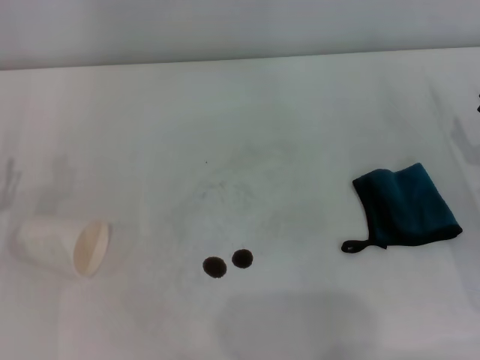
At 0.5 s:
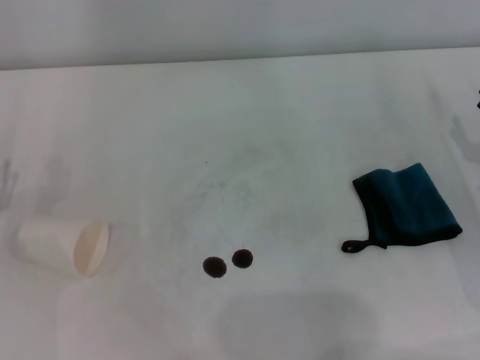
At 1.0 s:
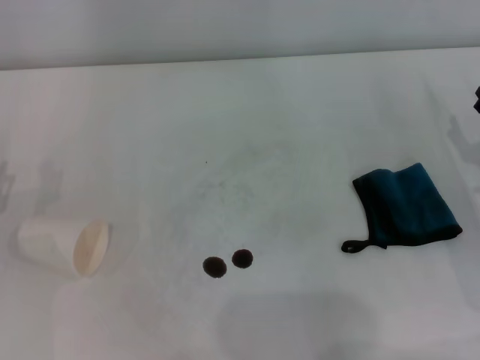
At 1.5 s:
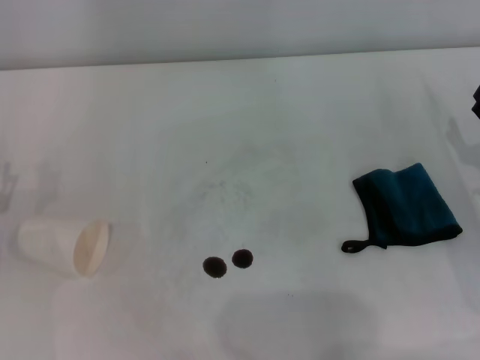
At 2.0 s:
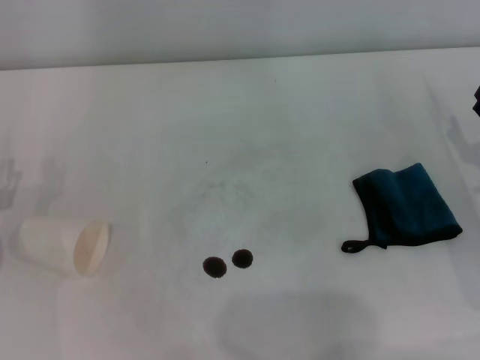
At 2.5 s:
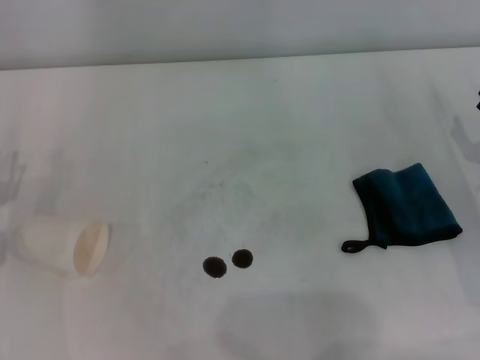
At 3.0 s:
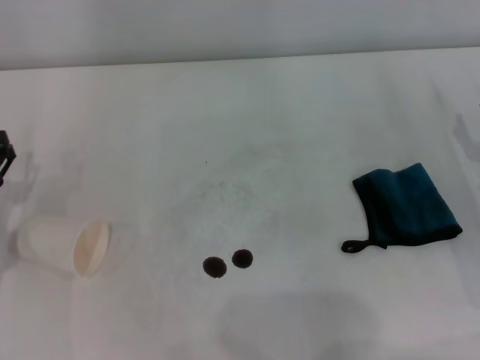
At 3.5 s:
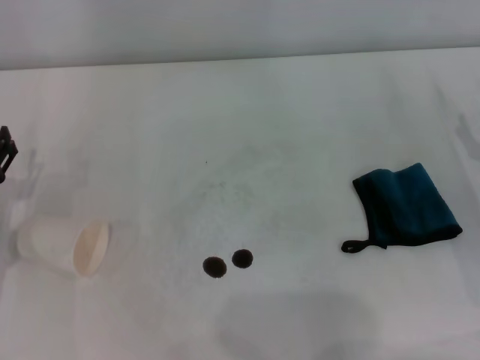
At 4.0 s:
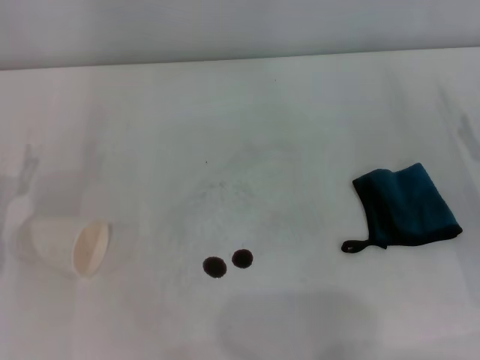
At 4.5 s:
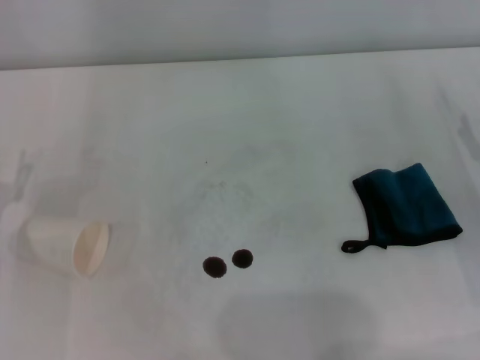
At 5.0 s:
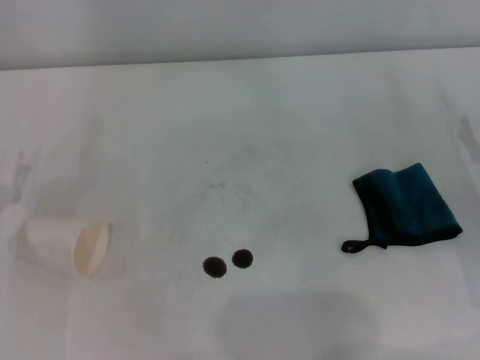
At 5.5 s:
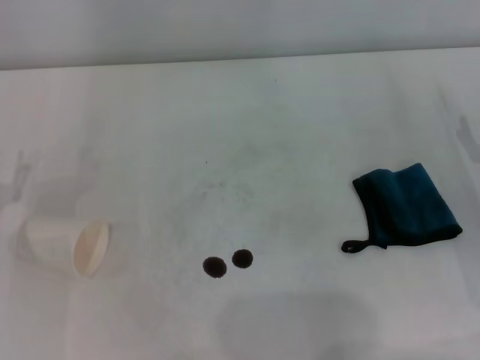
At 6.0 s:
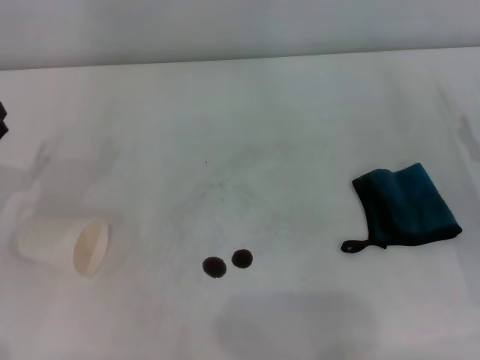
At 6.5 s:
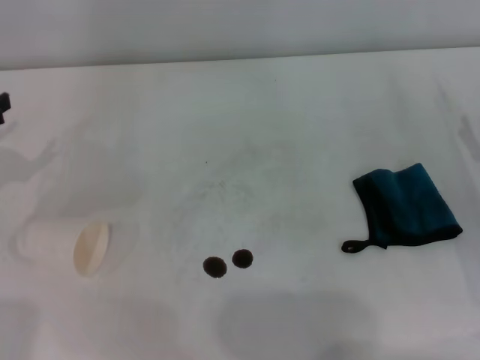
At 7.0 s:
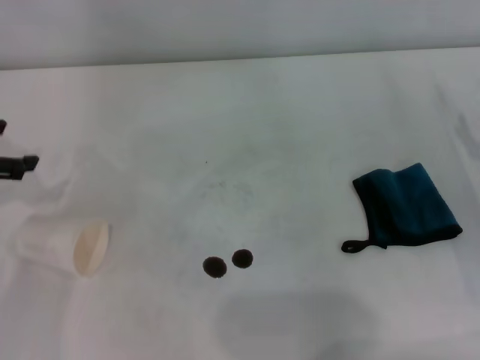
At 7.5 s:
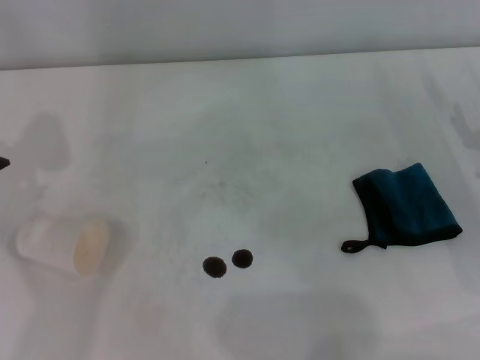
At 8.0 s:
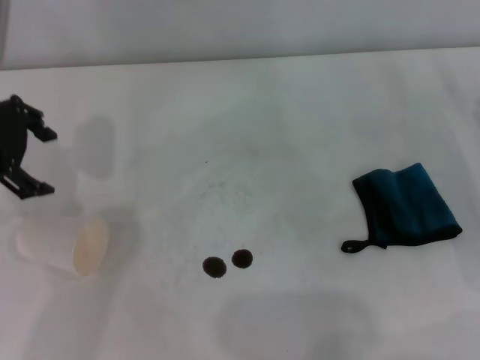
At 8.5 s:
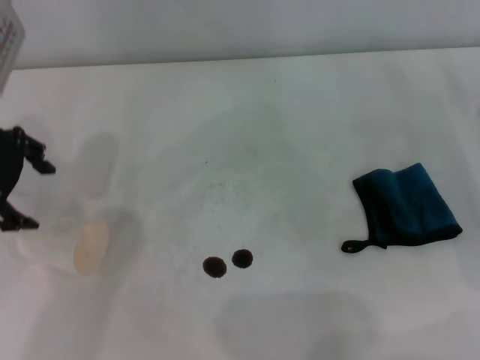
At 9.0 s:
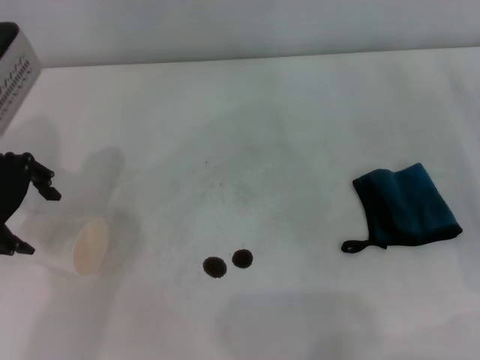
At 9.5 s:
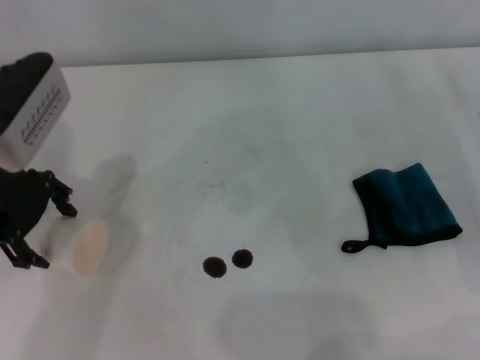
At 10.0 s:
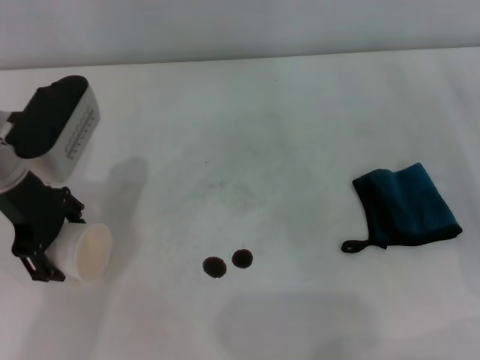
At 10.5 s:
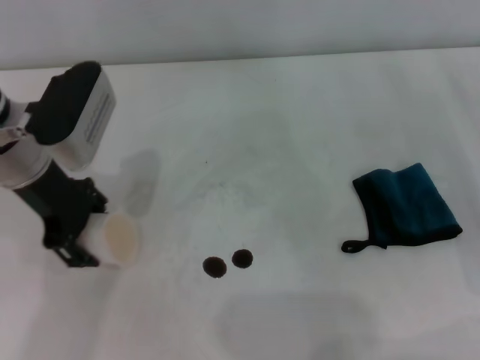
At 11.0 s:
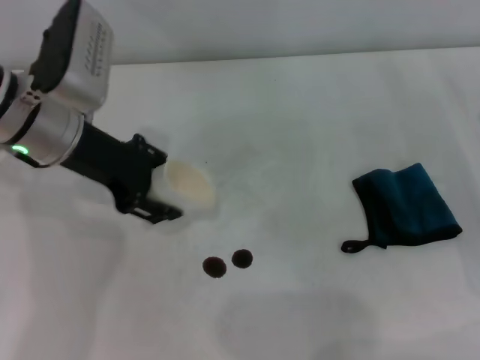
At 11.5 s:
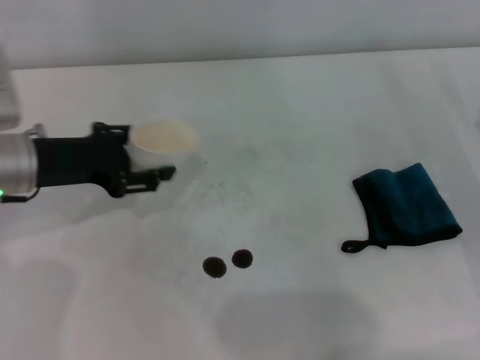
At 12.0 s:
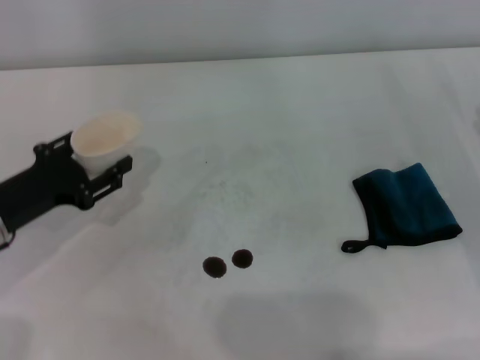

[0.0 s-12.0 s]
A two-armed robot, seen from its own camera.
Step, 0.0 to 10.0 s: Grasp the paper cup with the left gripper.
6.0 to 8.0 s: The left gripper moves upward, forward and to the right, roughly 20 cm.
8.0 to 10.0 s: The left gripper heads downward, covering about 5 cm.
10.0 to 12.0 s: The left gripper shifts some 15 cm downward, backward and to the left, and closes its fingers.

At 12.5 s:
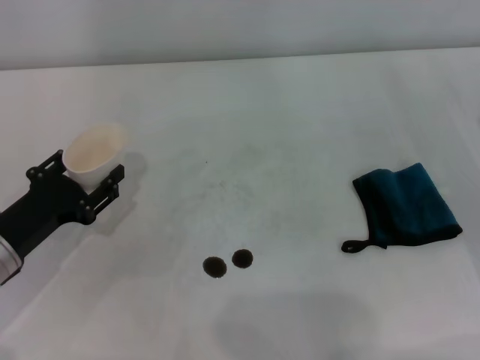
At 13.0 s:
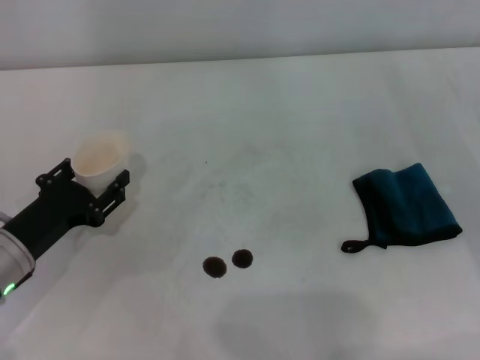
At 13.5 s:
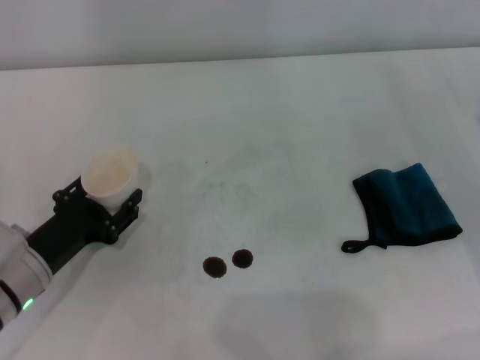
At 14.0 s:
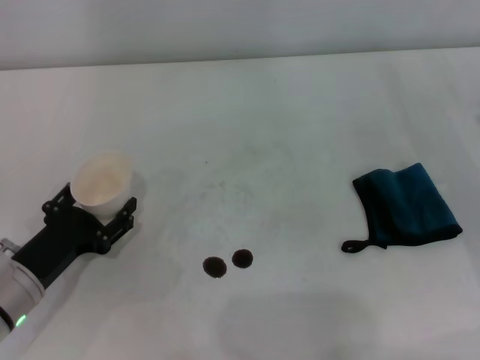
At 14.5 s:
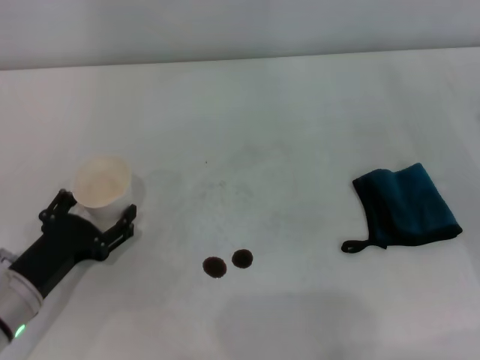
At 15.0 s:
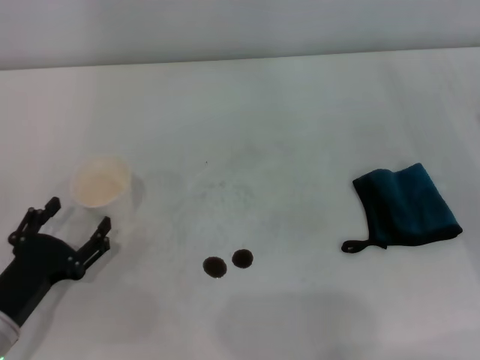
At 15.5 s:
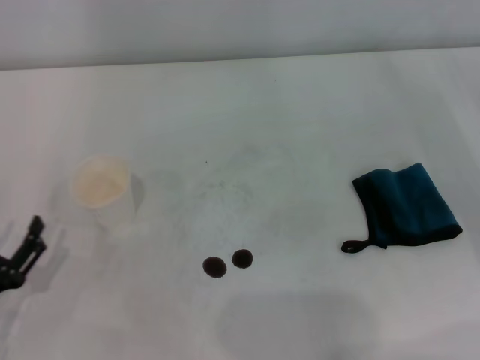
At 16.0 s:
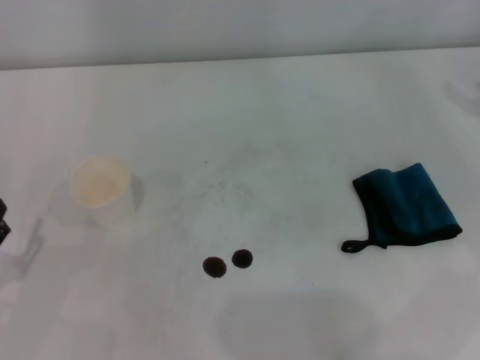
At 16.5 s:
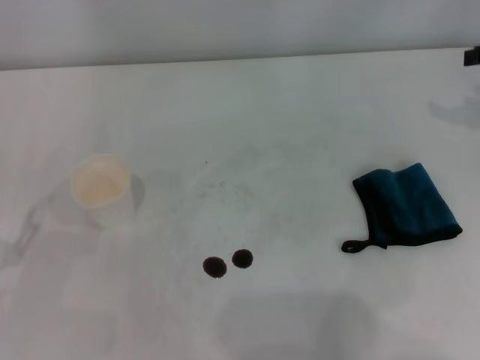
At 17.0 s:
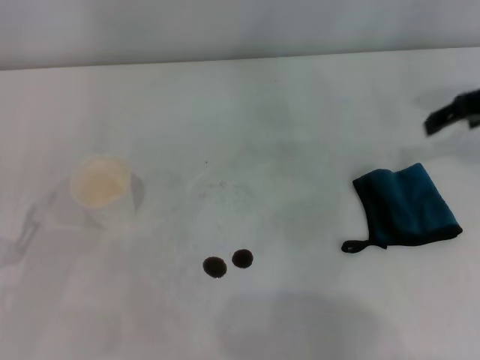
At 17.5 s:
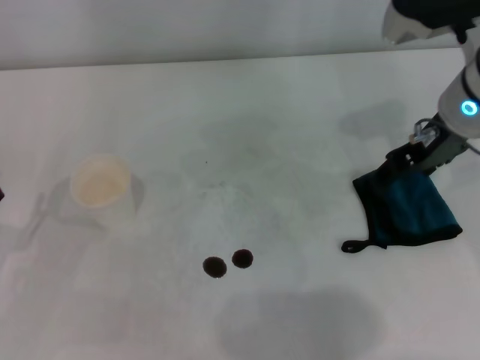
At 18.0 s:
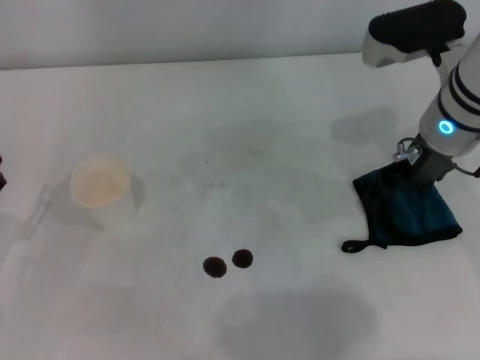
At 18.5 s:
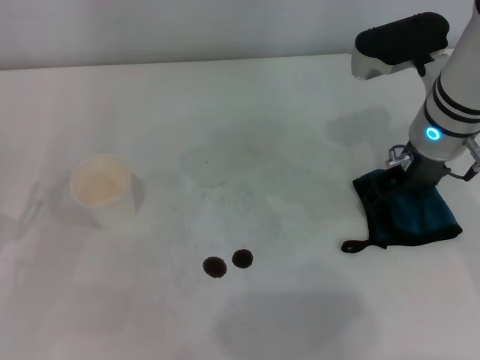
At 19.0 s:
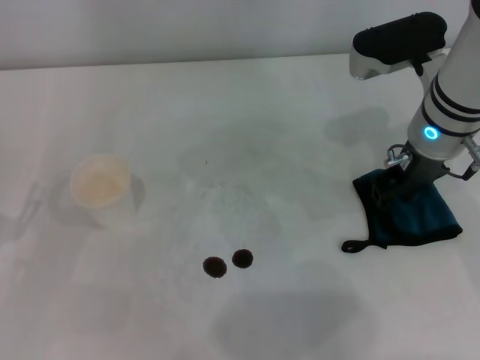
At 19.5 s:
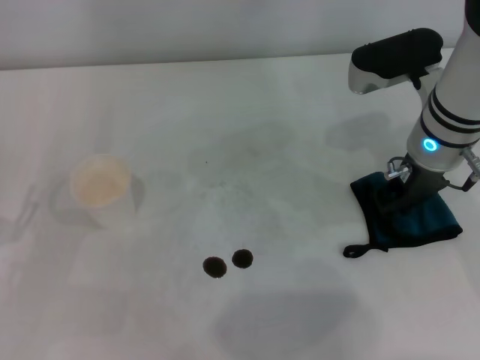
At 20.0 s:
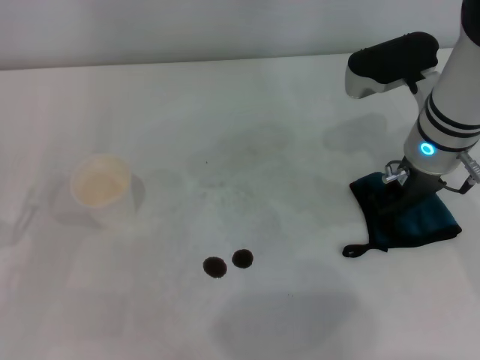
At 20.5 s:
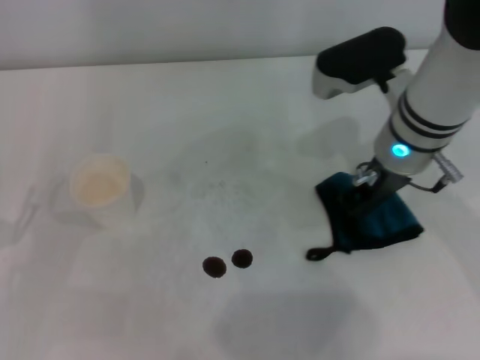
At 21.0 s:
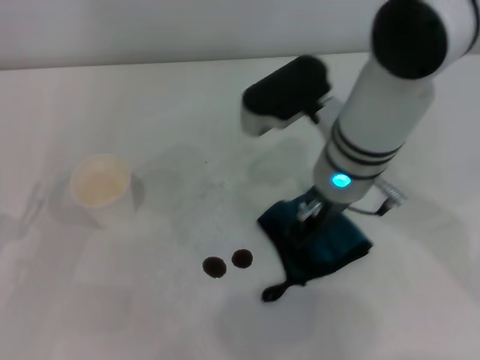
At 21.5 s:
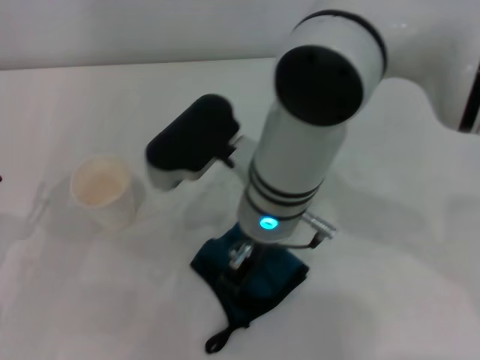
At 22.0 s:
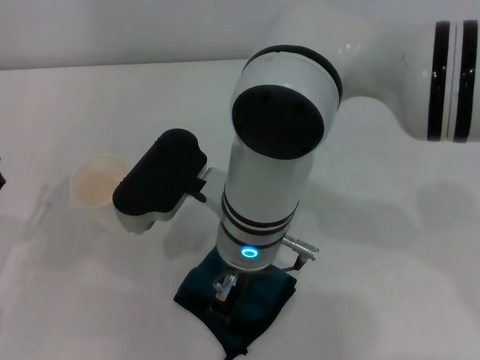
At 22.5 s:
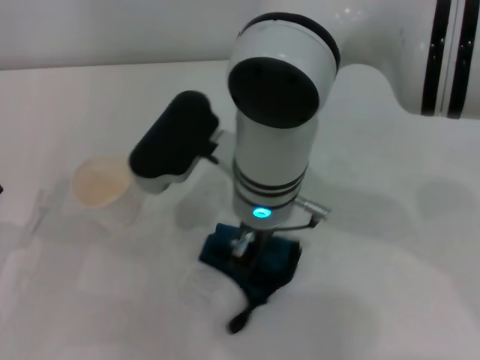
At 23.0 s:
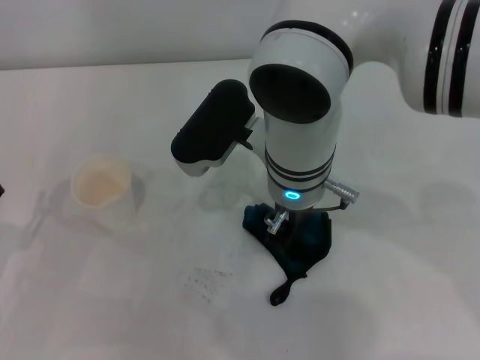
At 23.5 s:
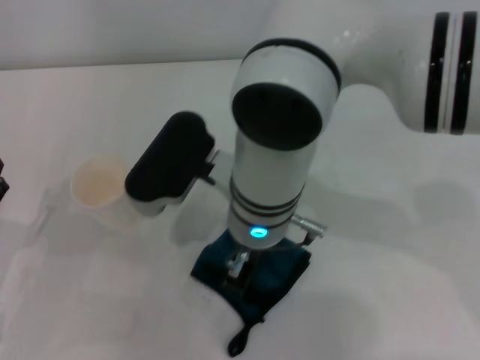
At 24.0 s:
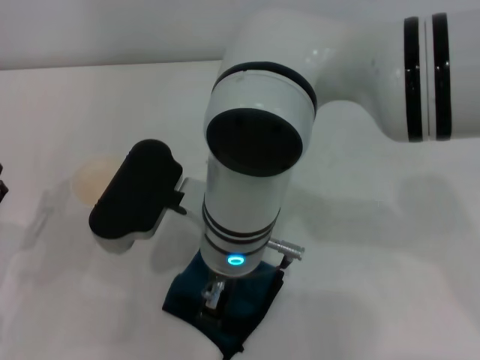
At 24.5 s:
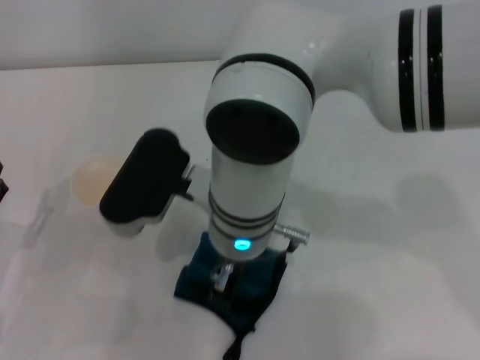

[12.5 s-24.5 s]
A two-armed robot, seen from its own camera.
Step, 15.0 to 20.0 s: Grasp the rag with the right gripper.
12.5 to 14.5 s: The left gripper ends up roughly 5 cm from where it was, and opens up.
14.5 to 16.5 s: The left gripper goes some 5 cm to the left. Meanwhile the right gripper heads upward and forward, covering about 15 cm.
16.5 to 18.5 s: The right gripper goes about 20 cm to the left.
18.5 to 20.5 s: The right gripper closes up.
20.5 to 22.5 s: The right gripper shifts about 15 cm to the left.

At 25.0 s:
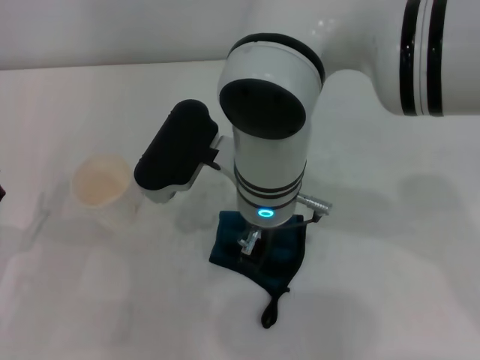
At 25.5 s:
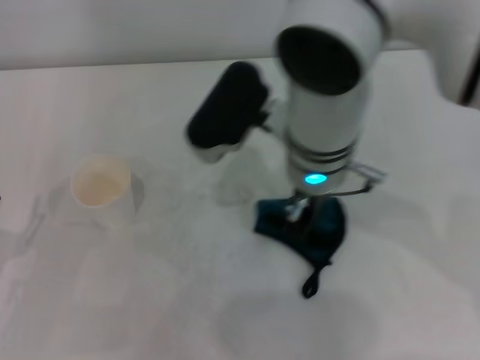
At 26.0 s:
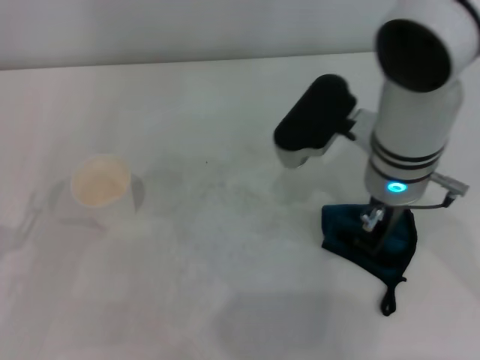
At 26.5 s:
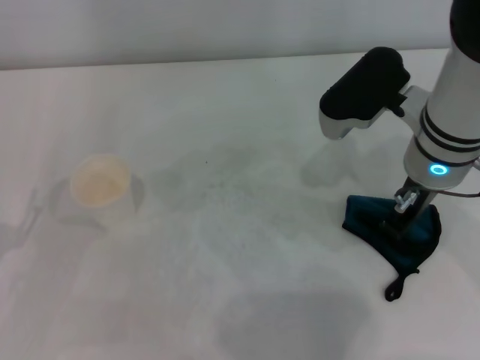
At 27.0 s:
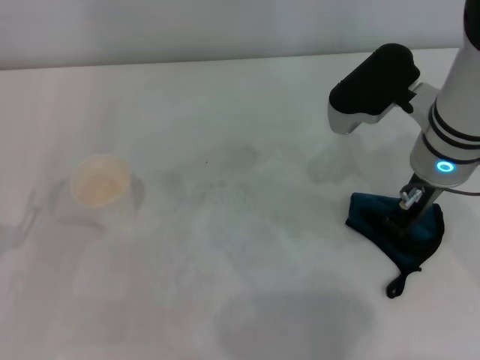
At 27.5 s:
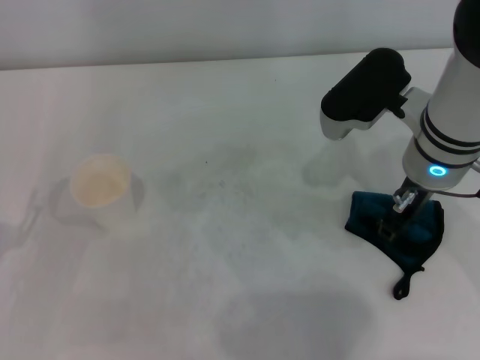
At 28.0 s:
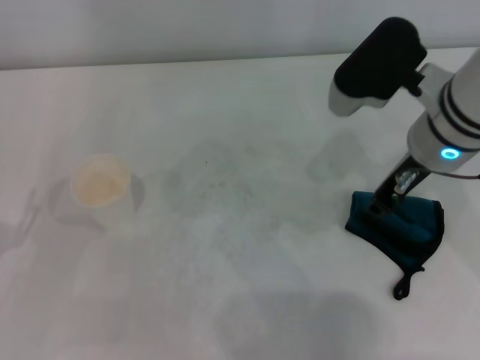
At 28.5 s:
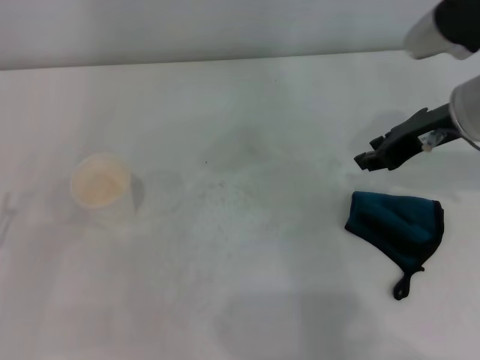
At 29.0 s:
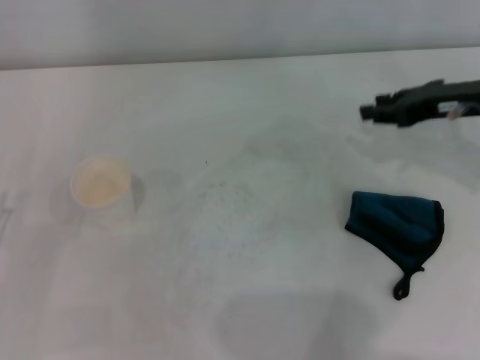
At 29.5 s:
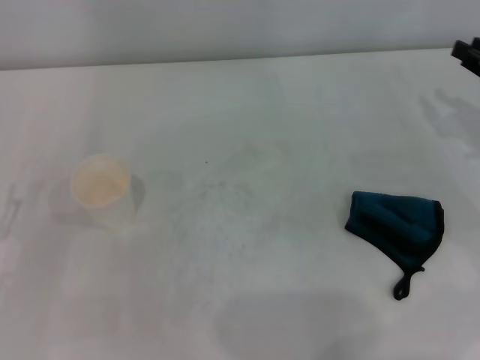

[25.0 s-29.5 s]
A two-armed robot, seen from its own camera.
Step, 27.0 to 27.5 s: Place the rag on the table with the right gripper.
25.0 to 27.0 s: The right gripper is displaced to the right by some 15 cm.
27.0 to 29.5 s: The right gripper heads to the right, covering approximately 20 cm, and opens up.
